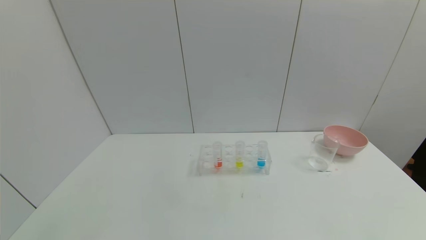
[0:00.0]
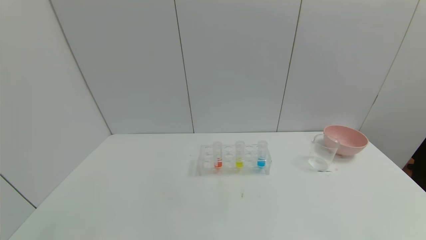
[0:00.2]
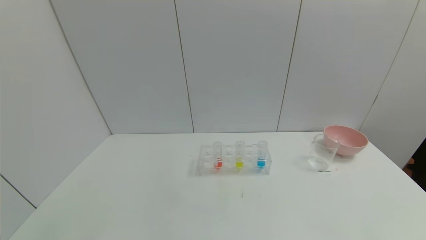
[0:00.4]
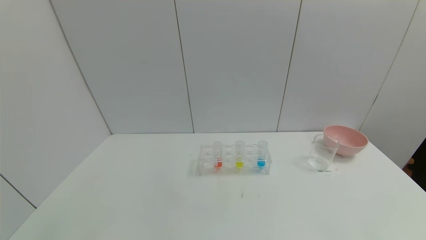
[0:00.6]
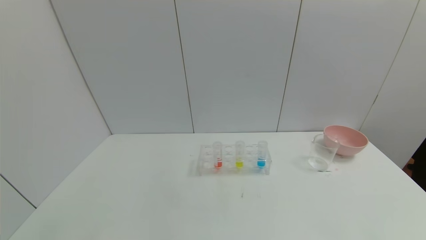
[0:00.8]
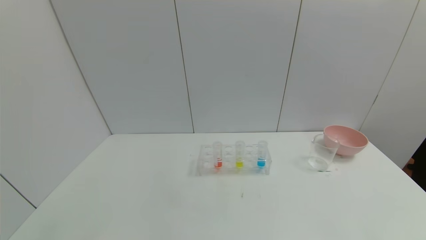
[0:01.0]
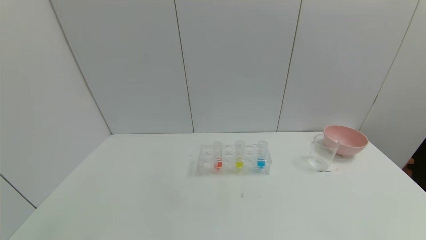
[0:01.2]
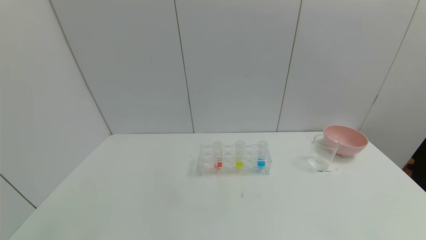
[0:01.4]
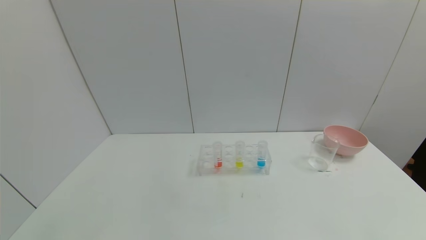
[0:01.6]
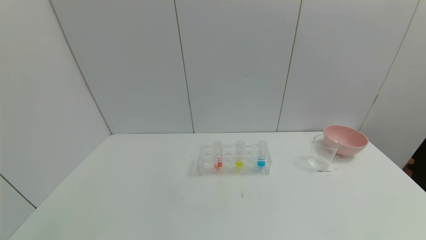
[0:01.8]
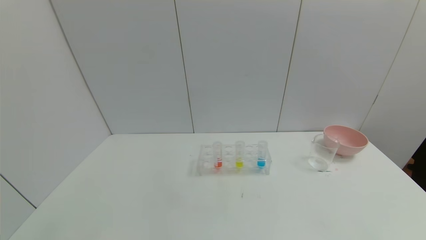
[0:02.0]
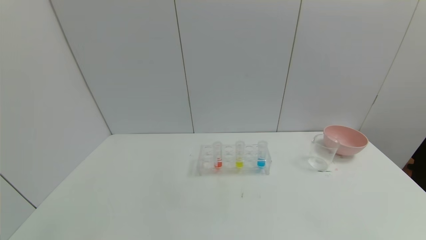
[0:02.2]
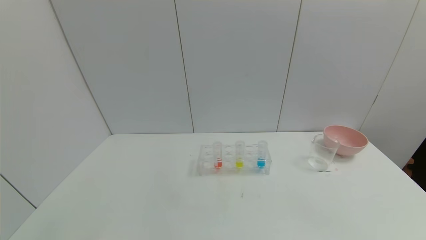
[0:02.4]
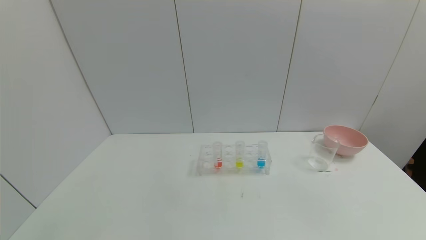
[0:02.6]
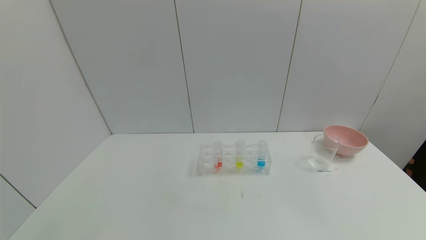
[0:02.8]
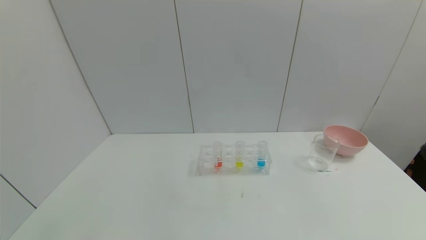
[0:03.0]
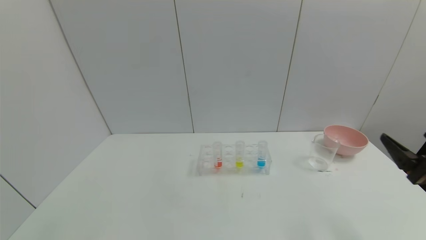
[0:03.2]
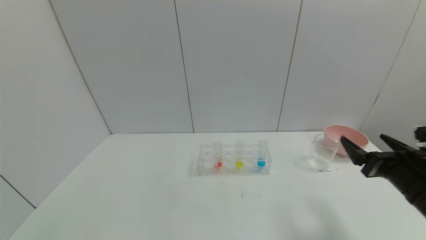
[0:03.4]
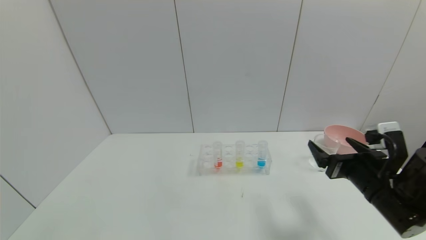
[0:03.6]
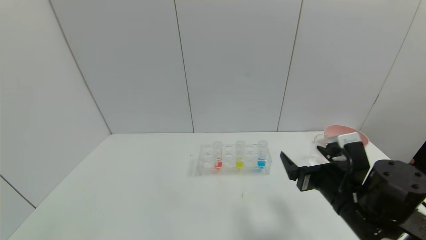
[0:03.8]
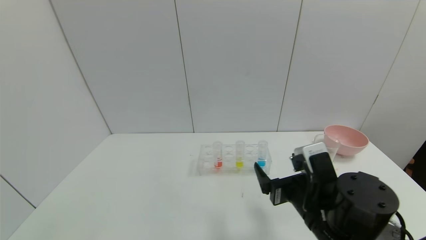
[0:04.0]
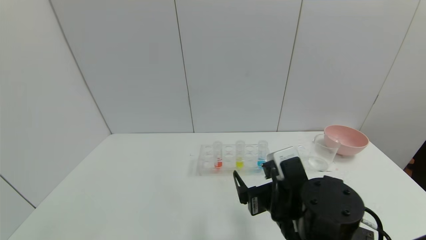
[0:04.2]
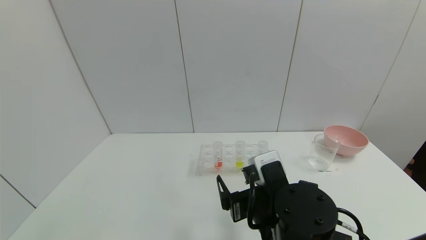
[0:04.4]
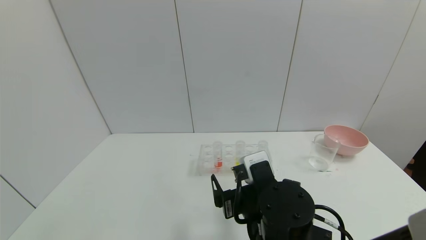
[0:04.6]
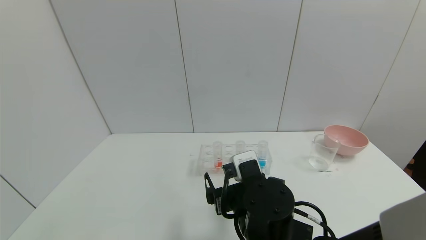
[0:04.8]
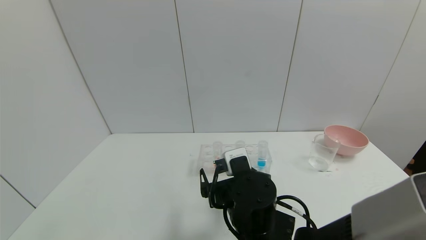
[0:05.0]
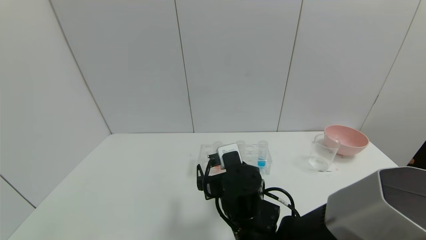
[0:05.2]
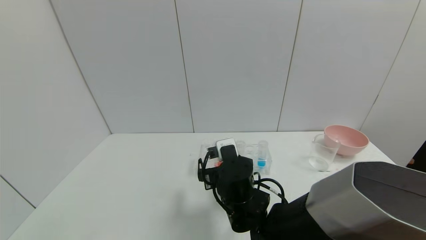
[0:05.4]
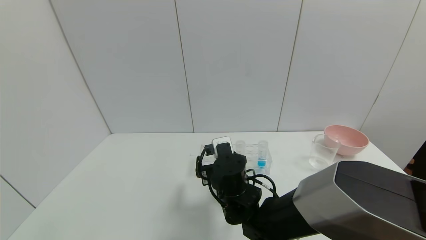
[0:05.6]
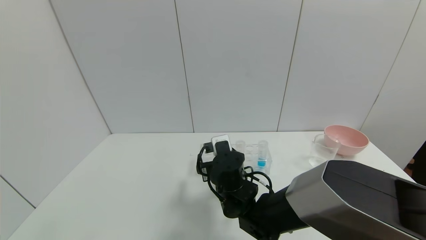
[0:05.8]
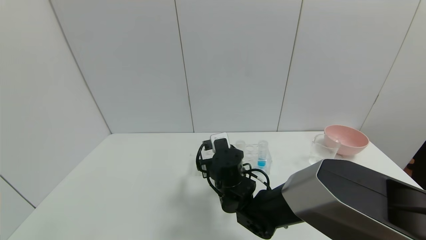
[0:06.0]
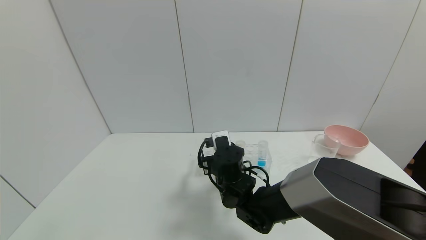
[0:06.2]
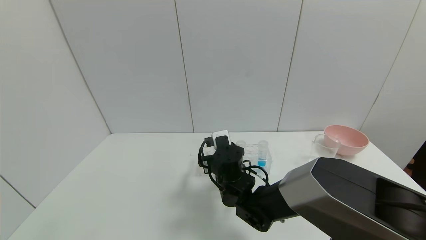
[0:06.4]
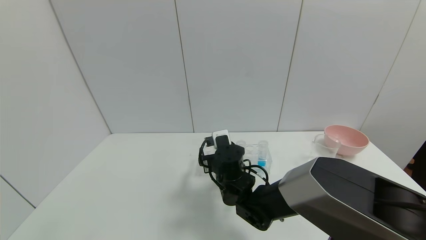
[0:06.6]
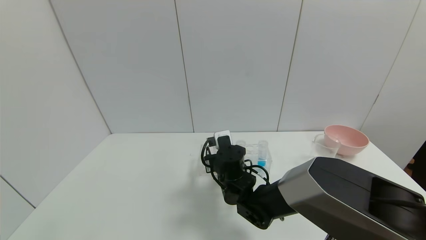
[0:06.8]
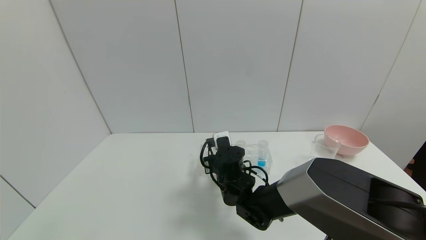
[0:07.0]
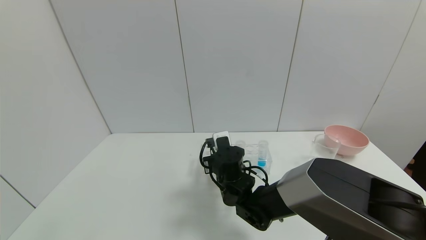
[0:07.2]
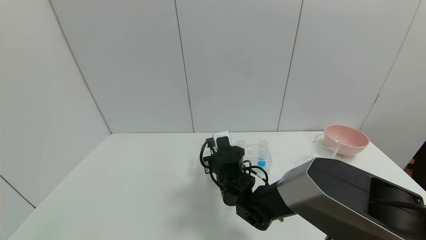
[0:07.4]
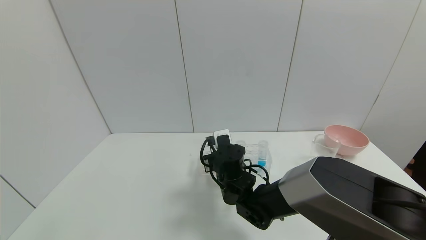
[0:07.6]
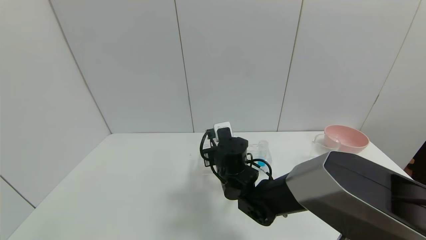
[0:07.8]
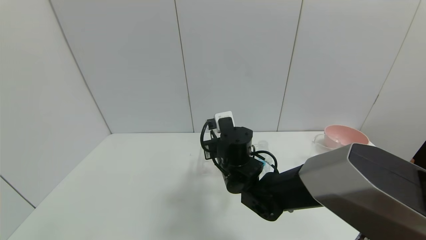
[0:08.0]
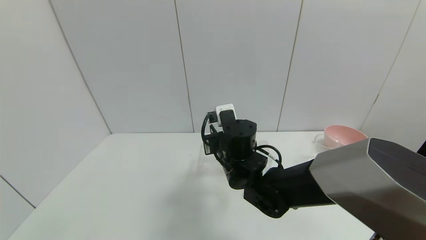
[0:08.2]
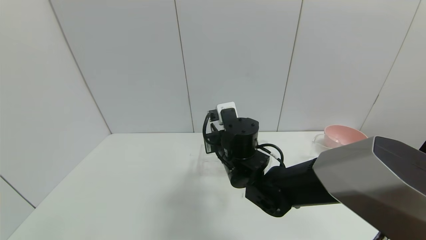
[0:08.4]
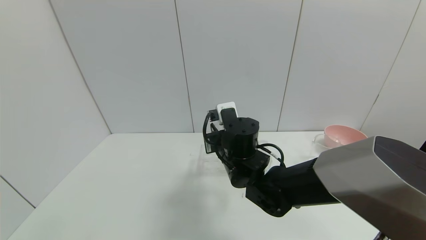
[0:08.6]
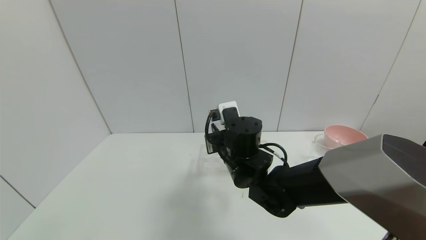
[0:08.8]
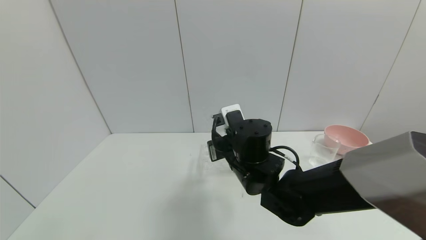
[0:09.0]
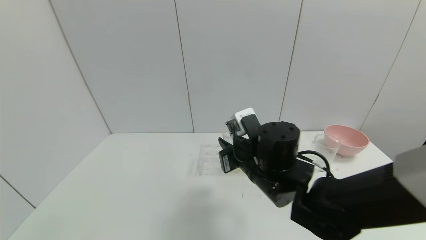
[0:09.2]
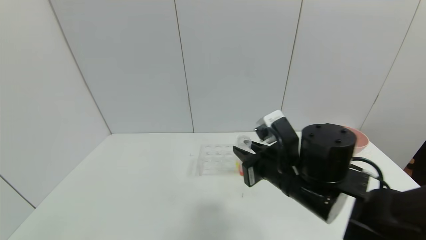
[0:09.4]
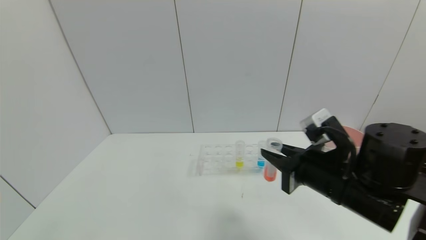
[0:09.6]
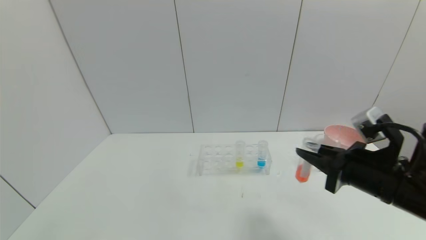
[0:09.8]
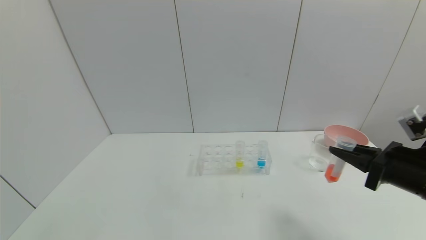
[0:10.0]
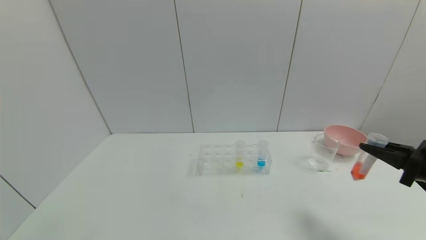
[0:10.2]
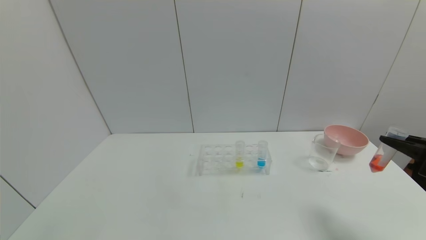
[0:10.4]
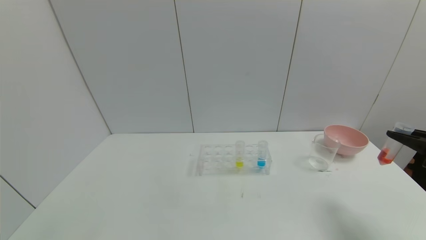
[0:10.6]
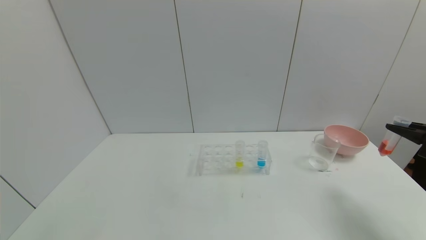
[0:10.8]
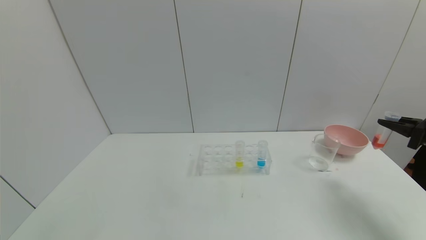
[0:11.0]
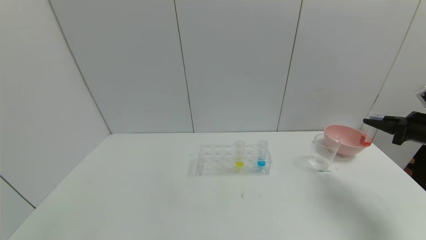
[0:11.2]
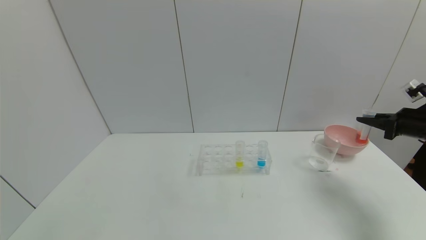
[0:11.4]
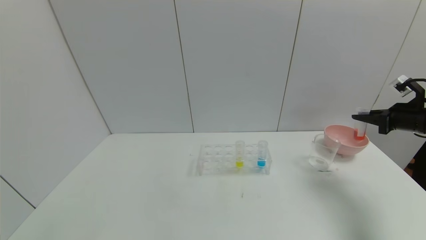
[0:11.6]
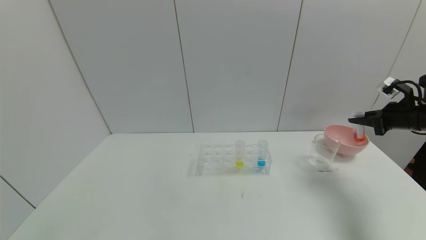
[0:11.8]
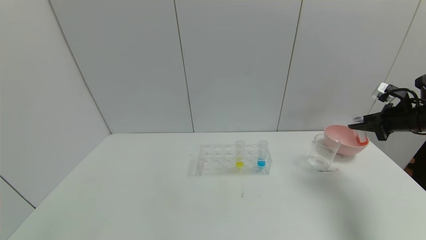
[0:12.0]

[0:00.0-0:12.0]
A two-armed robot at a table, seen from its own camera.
Task of the whole recording: pick up the test tube with red pigment and the test tube with blue pigment by grippers and pour them into the container.
Step, 0:00.0 to 0:07.2: Grasp the red reagent with the right gripper.
0:00.0 to 0:01.6: Both grippers stay about where they are.
0:03.0 to 0:04.4: The right gripper goes some 30 cm to the left.
0:04.4 to 0:06.0: The right gripper is displaced forward and to the left by roughly 15 cm.
0:06.0 to 0:07.6: The right gripper closes up.
0:07.6 to 0:09.0: The right gripper goes approximately 10 cm upward.
0:09.0 to 0:10.4: The right gripper shifts approximately 40 cm to the right.
0:10.4 to 0:12.0: The right gripper goes roughly 15 cm forward.

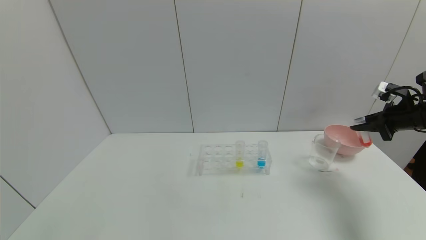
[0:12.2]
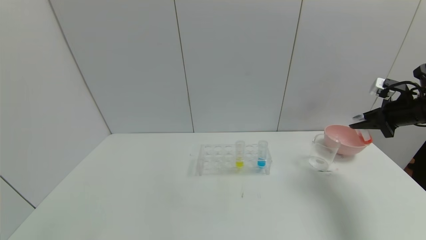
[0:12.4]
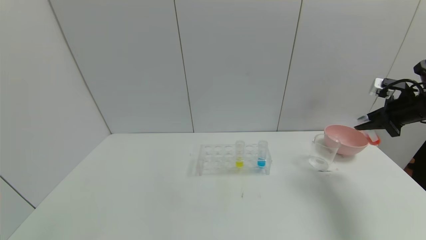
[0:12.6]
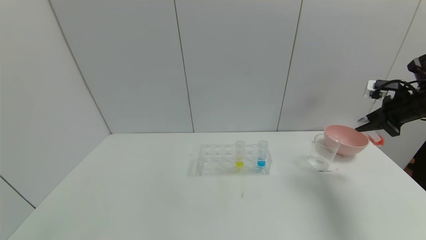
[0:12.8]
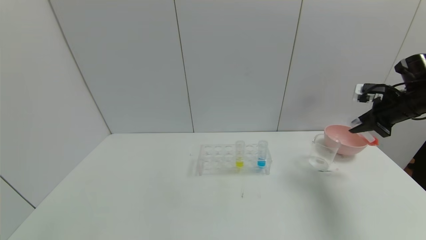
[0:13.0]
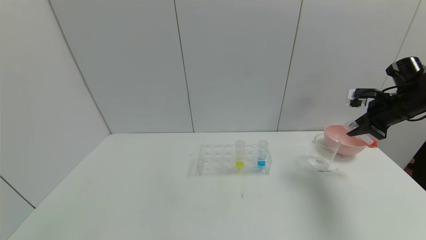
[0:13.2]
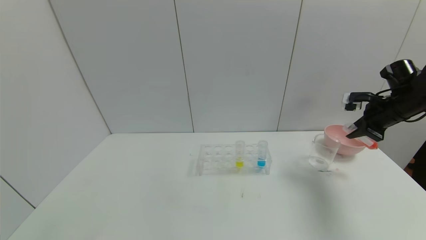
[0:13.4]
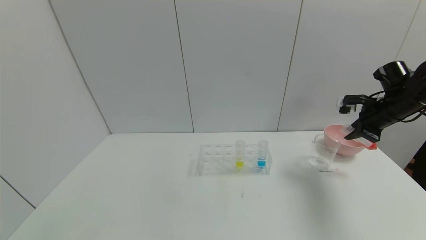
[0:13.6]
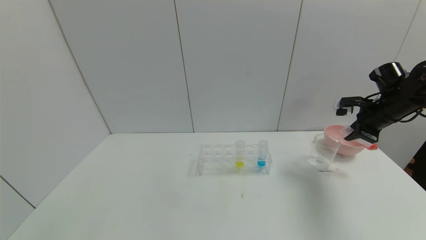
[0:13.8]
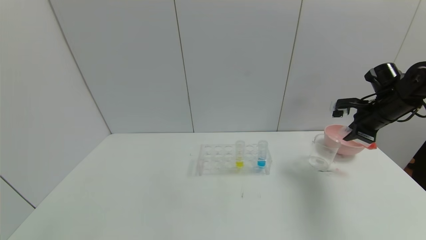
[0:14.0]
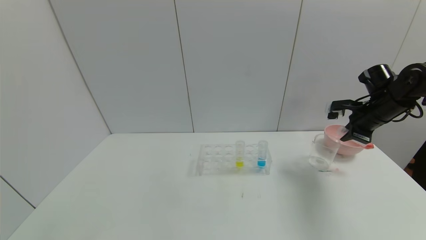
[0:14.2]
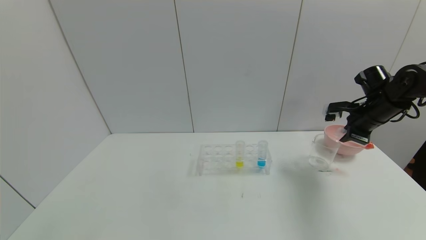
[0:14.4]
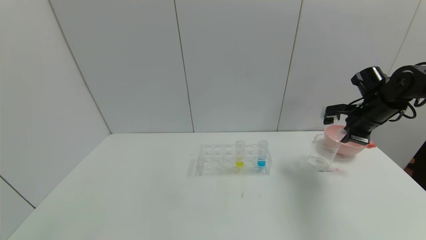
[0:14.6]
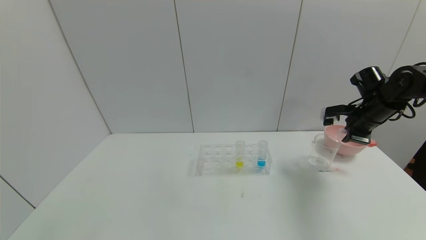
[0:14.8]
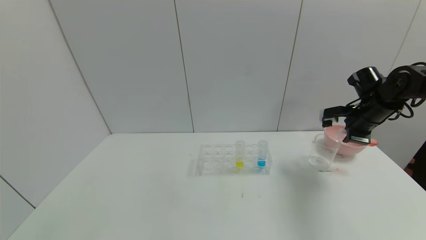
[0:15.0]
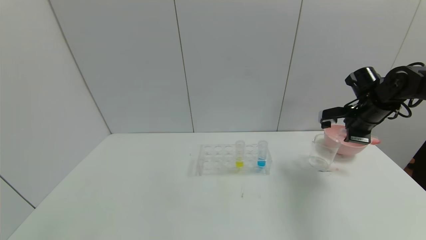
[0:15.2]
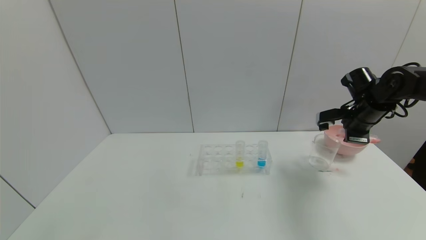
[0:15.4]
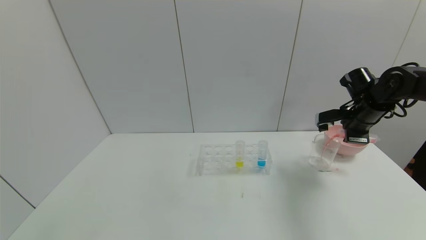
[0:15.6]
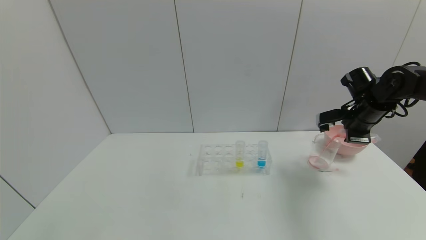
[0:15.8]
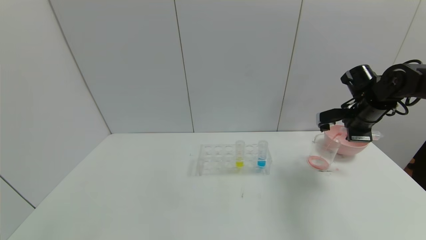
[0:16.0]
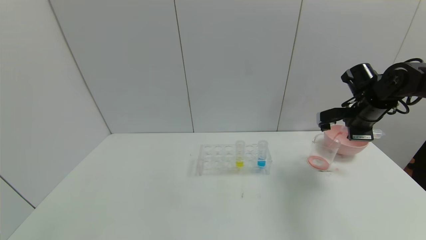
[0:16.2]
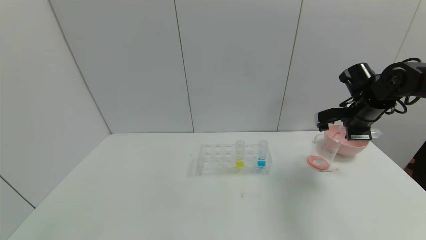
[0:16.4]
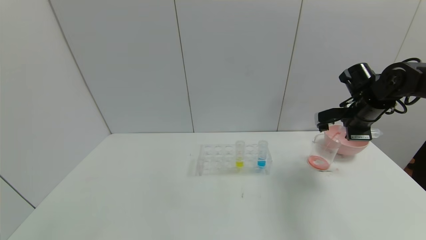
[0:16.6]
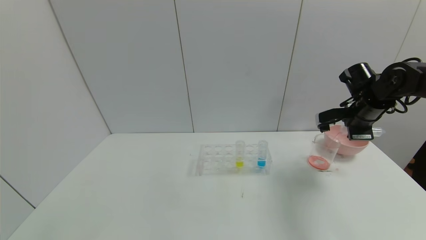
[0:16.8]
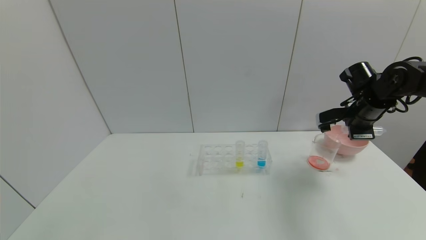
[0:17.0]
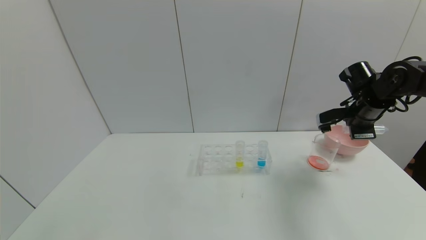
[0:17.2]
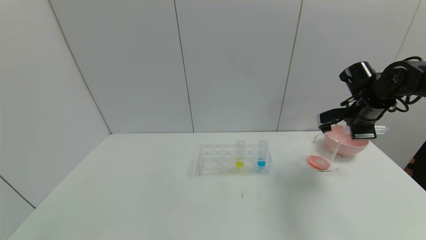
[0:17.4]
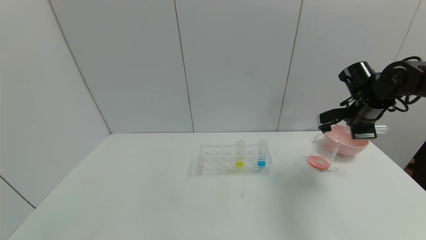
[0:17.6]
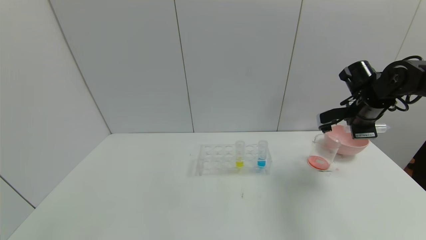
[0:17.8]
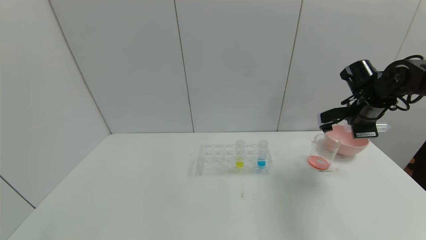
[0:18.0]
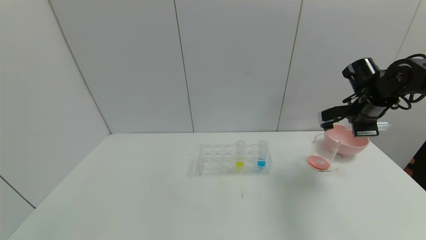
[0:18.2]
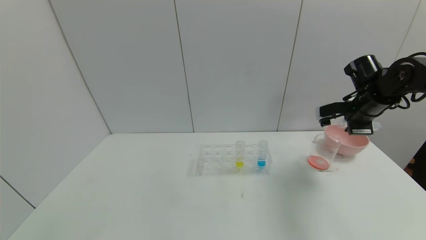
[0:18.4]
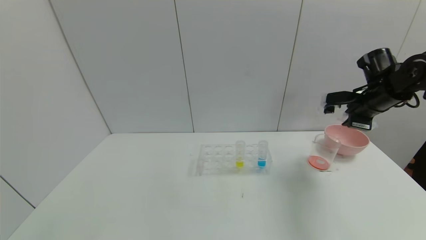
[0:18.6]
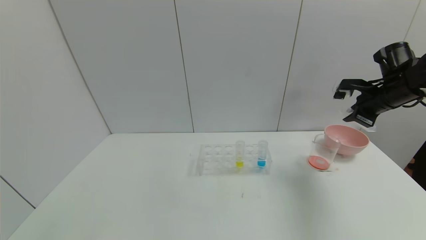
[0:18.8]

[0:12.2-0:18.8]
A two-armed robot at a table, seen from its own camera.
Task of the whole recording: pick up the test tube with red pigment and the test tube with blue pigment by grippers and pour them into the container.
Step, 0:12.2 to 0:17.2: Pour the red reagent into the graduated cylinder with the right gripper.
0:12.2 to 0:13.8: The right gripper moves to the left, some 5 cm.
0:15.4 to 0:17.2: There are only small adjustments of the grippers.
0:17.2 to 0:18.8: The right gripper changes place by approximately 5 cm.
